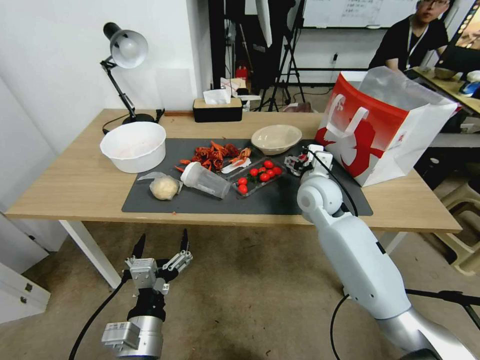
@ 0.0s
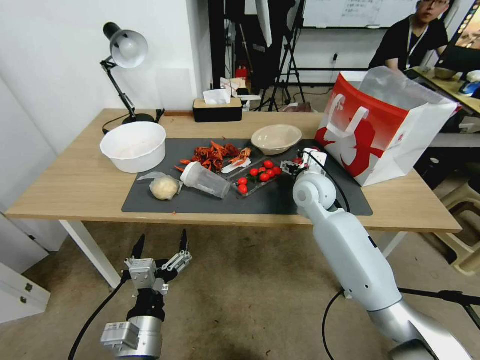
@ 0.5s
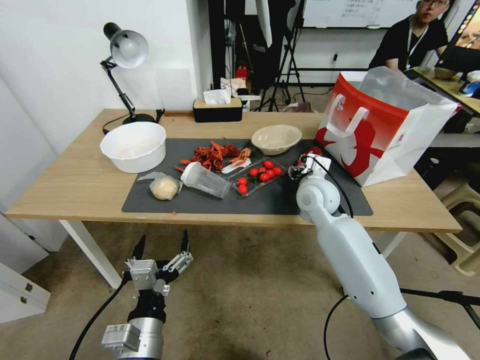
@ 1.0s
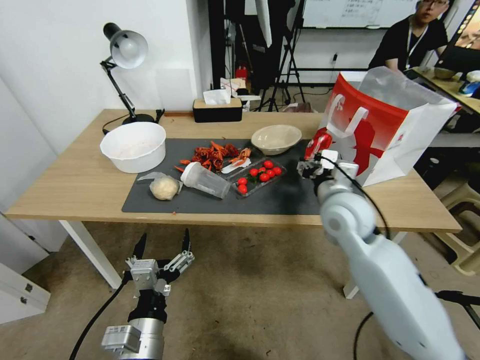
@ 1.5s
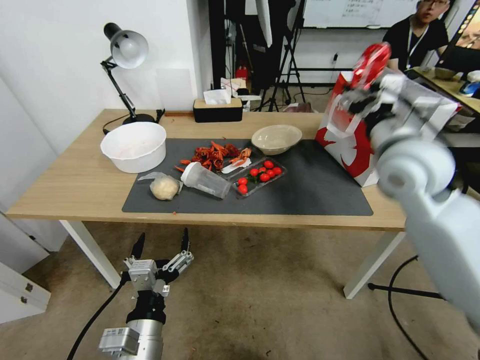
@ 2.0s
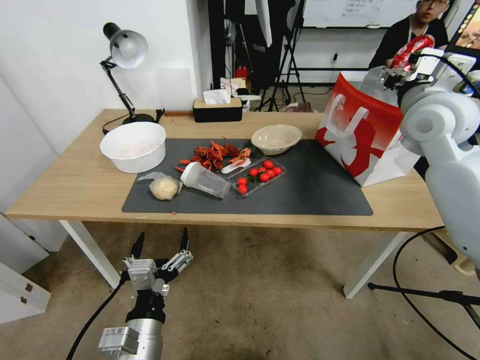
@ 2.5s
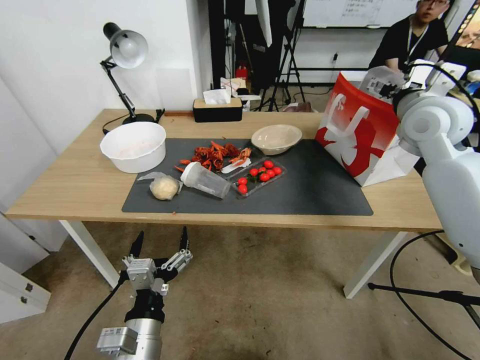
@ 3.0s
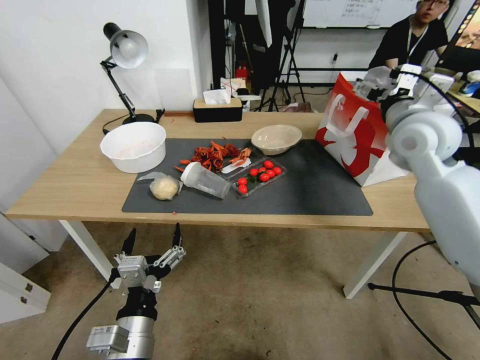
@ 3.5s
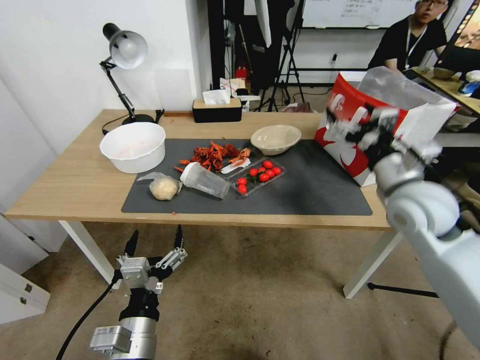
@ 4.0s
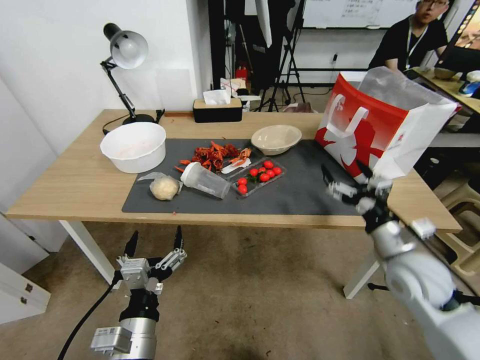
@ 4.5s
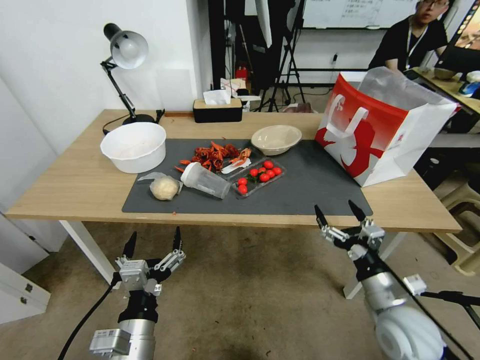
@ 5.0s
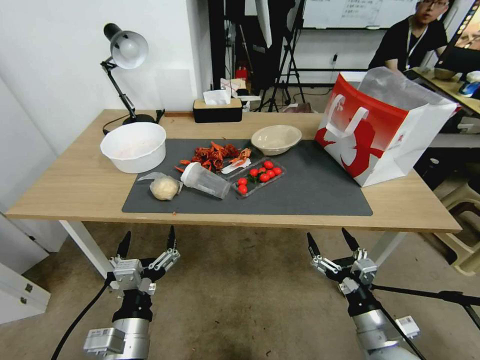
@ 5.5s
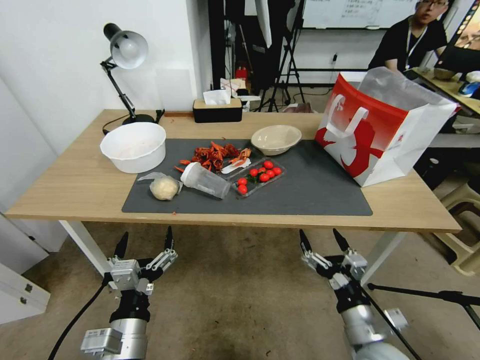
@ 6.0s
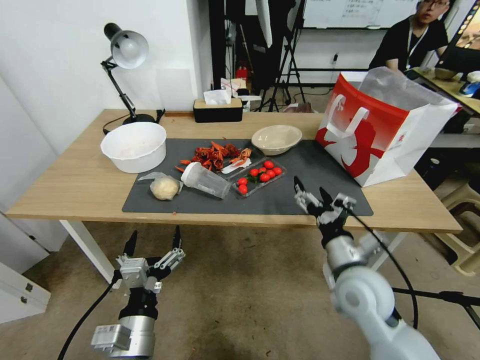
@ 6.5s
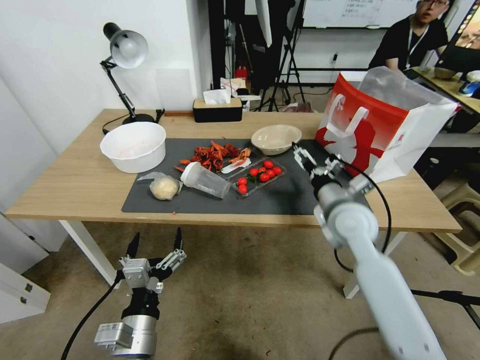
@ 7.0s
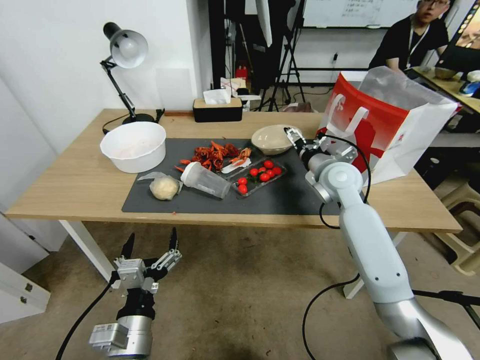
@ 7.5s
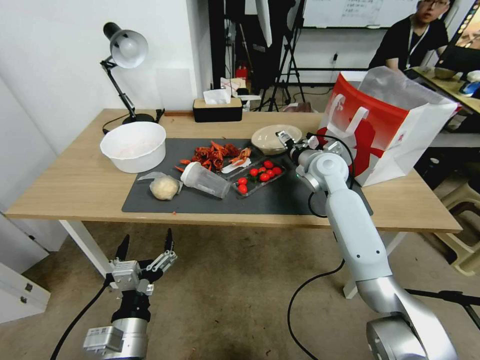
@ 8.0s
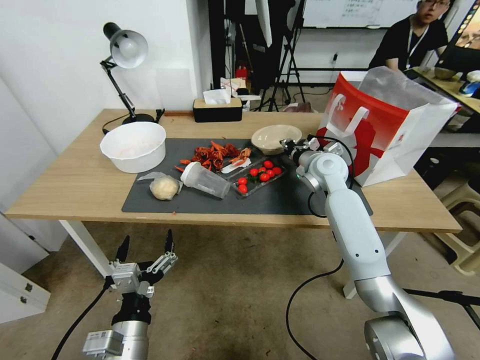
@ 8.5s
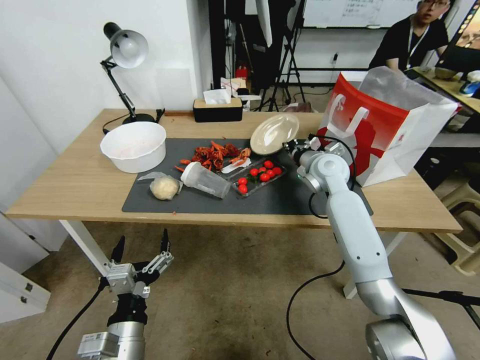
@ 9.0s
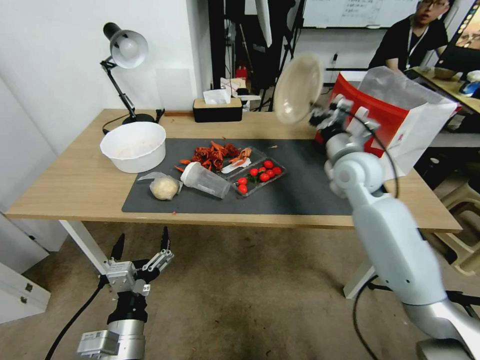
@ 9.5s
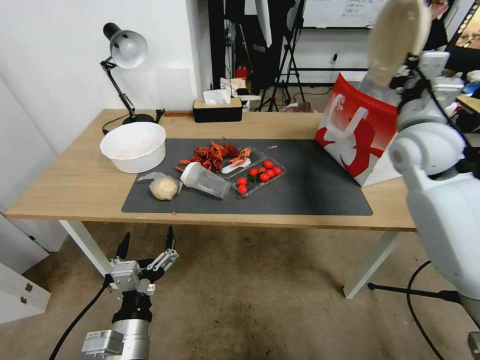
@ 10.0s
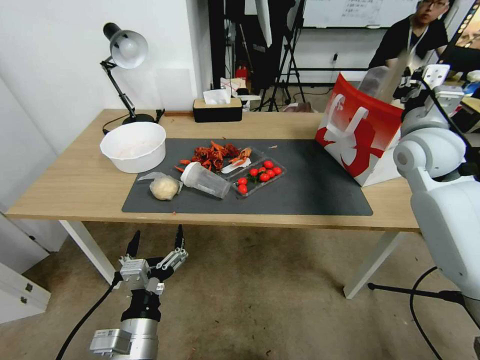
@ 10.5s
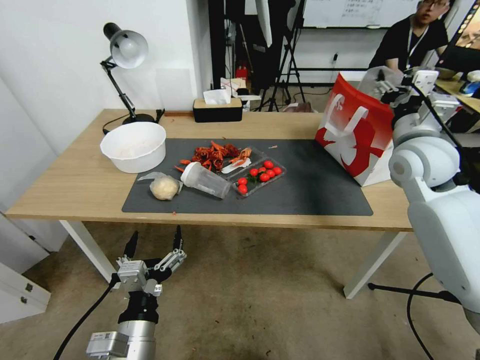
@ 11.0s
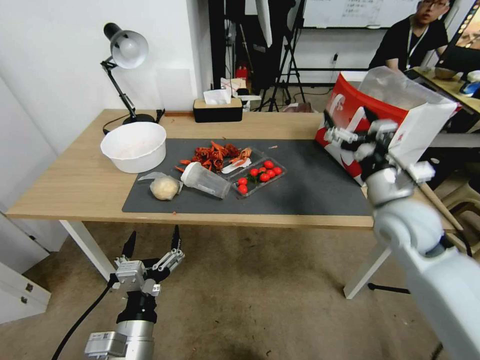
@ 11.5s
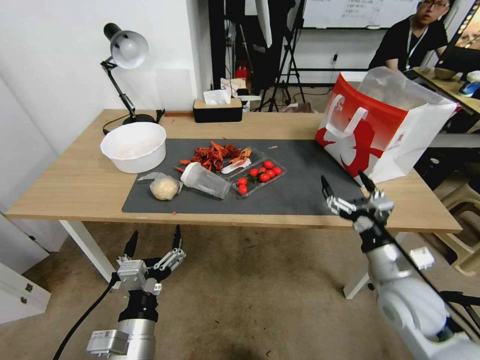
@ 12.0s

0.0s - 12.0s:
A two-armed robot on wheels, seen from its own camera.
0.0s - 2.0s: The right gripper heads backward, upward and to the right, covering about 15 cm, and closes.
2.0s - 4.0s: The right gripper shifts about 5 cm to the right, goes forward and returns, about 10 cm each way, and opens.
4.0s - 6.0s: The right gripper moves downward and backward, approximately 35 cm.
6.0s - 8.0s: The right gripper heads forward, covering some 40 cm.
8.0s - 10.0s: The right gripper goes roughly 15 cm upward, backward and to the right, and closes its fingers.
10.0s - 12.0s: The right gripper goes approximately 20 cm backward and downward, and opens.

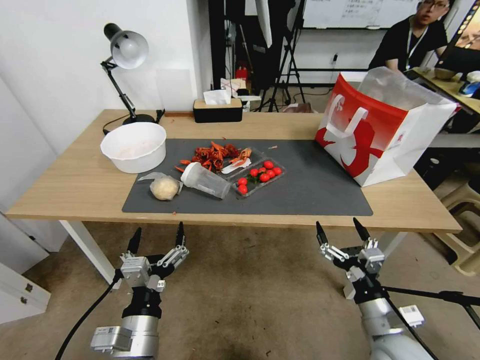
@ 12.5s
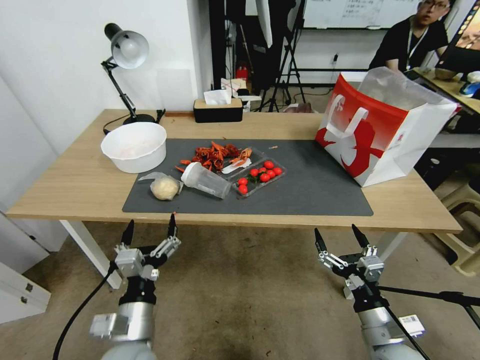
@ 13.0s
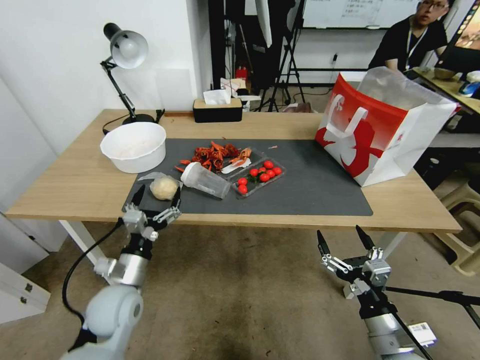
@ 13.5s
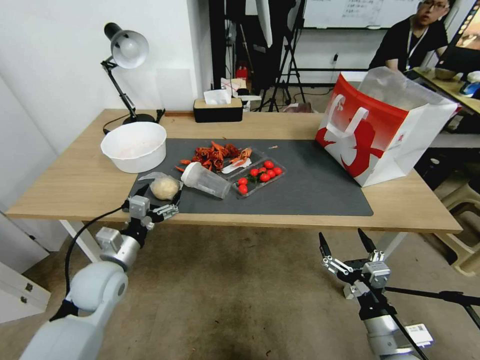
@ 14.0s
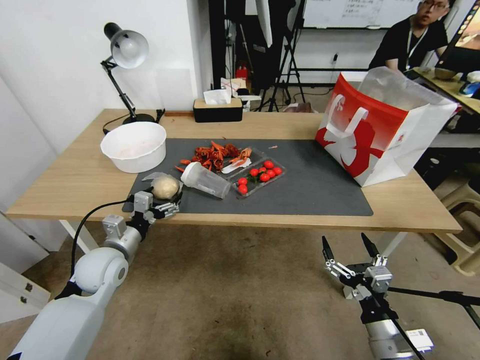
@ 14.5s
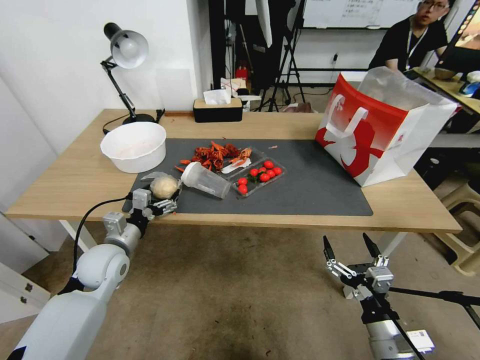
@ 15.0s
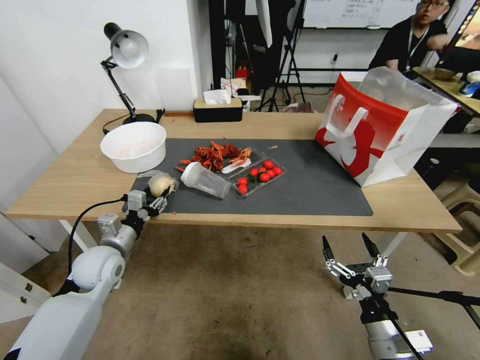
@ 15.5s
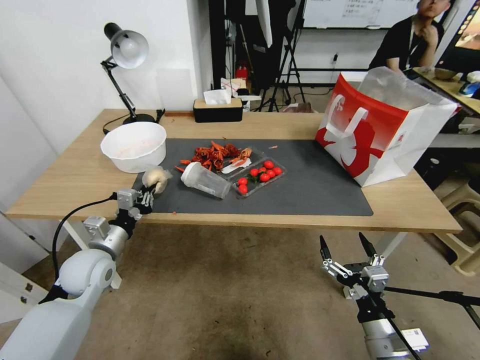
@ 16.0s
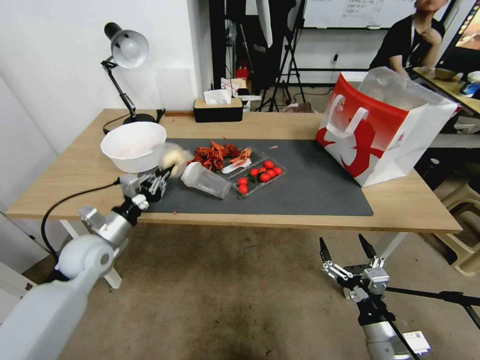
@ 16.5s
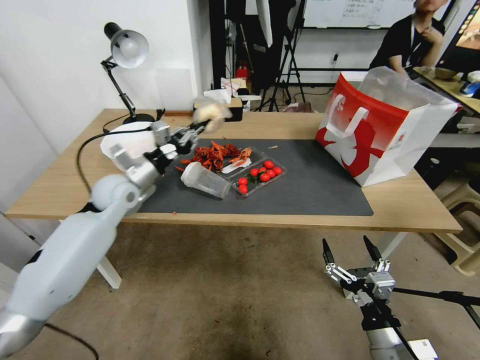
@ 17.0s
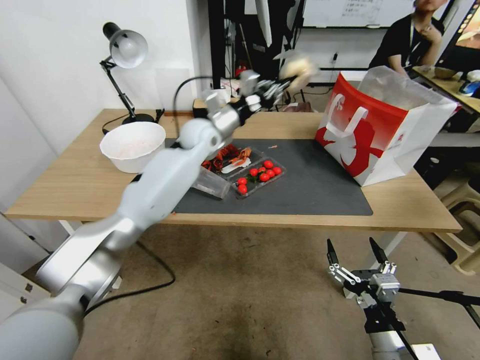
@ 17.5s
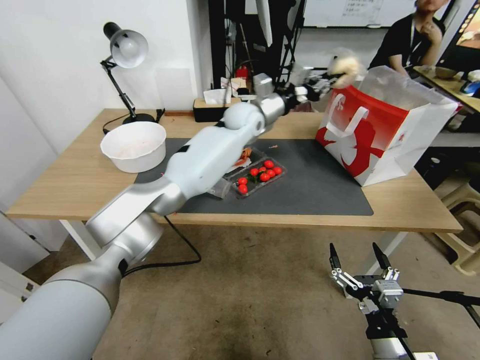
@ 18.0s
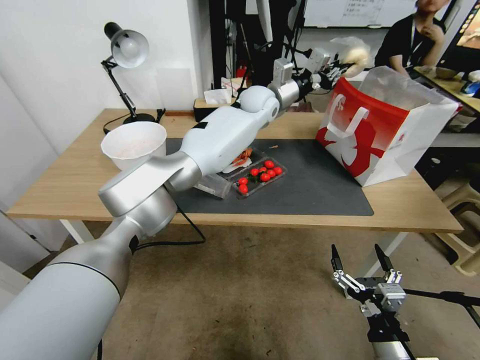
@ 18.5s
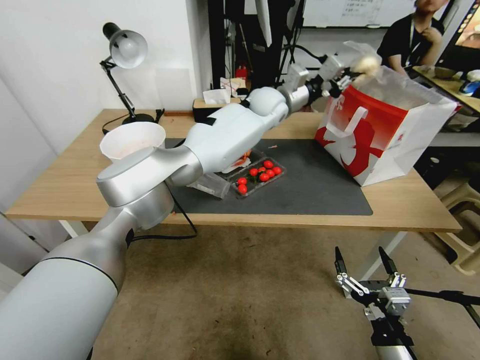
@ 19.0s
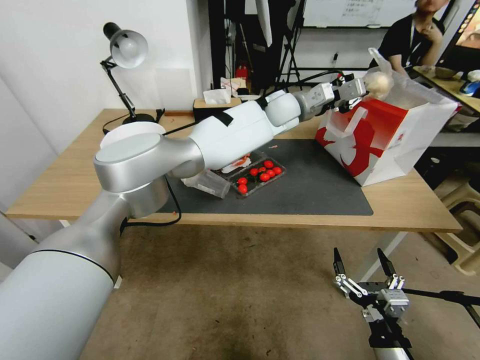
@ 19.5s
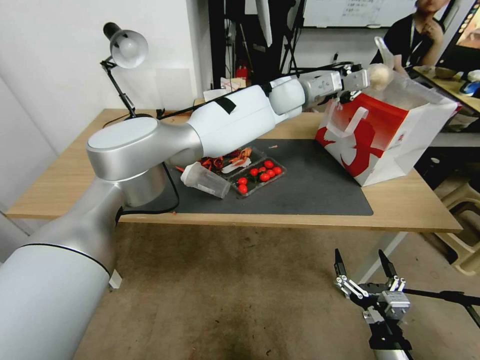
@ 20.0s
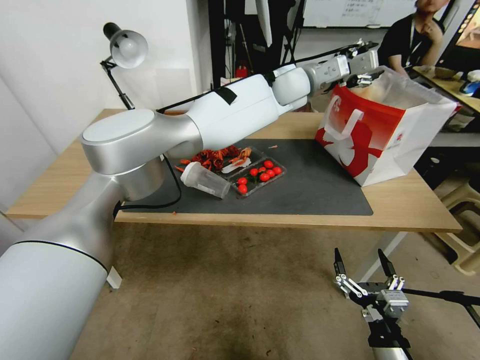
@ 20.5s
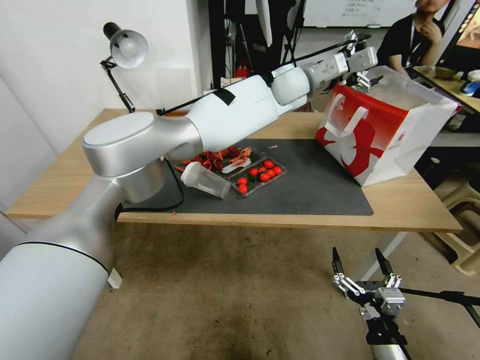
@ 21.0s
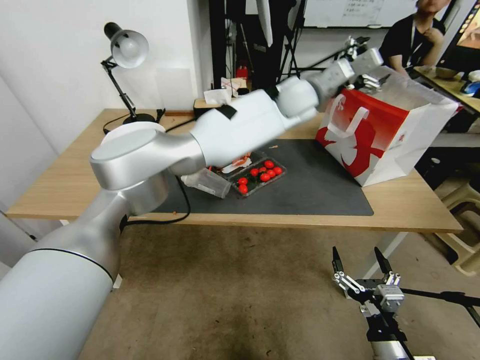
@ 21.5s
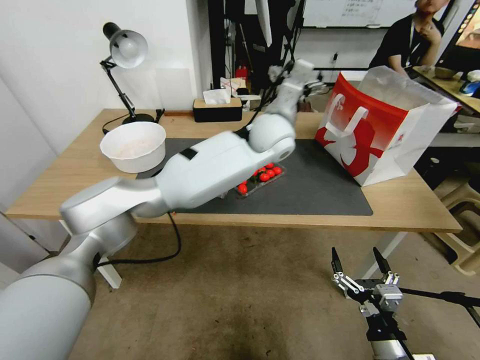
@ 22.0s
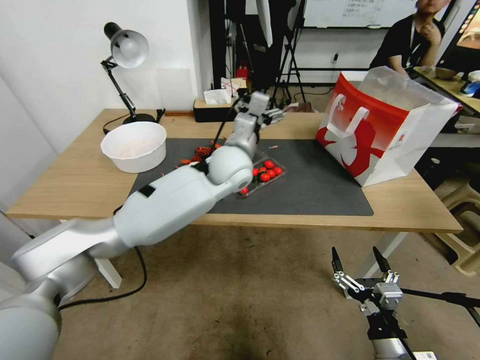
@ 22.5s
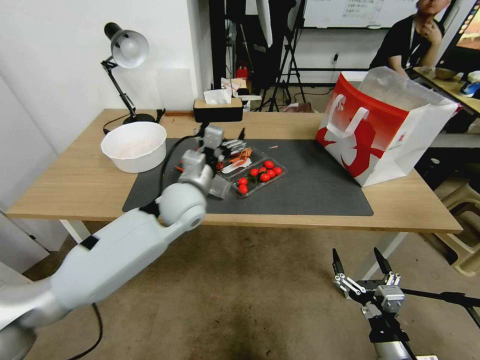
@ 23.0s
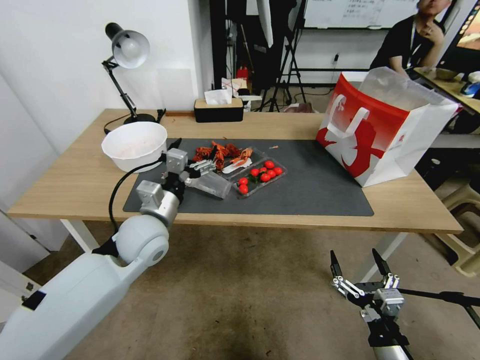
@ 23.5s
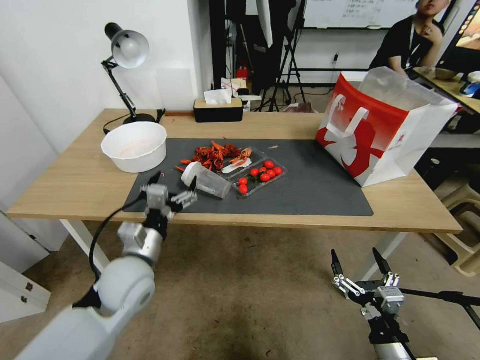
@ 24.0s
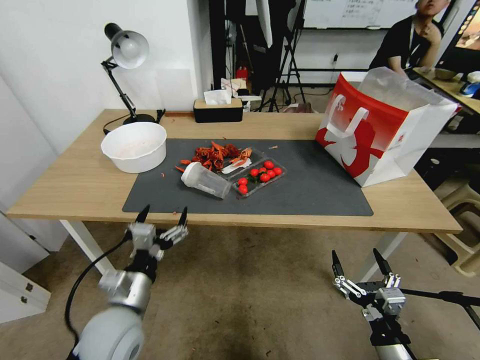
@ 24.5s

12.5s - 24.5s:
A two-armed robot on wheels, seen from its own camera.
12.5s - 14.5s: The right gripper is displaced backward by approximately 5 cm. Meanwhile the left gripper moves forward and to the left, some 25 cm.
14.5s - 16.5s: The left gripper closes its fingers.
16.5s - 18.5s: The left gripper moves to the right, forward and upward, approximately 50 cm.
18.5s - 20.5s: The left gripper heads upward and to the right, covering roughly 10 cm, and opens its fingers.
20.5s - 22.5s: The left gripper travels downward, backward and to the left by about 20 cm, and opens its fingers.
22.5s - 24.5s: The left gripper goes some 40 cm backward, to the left and downward.

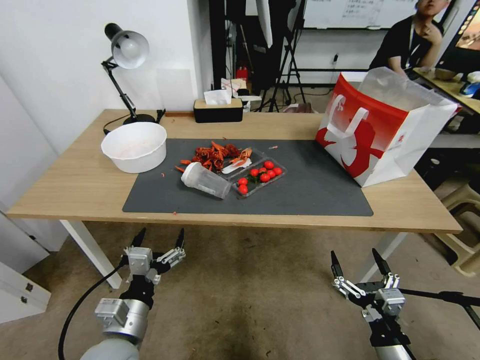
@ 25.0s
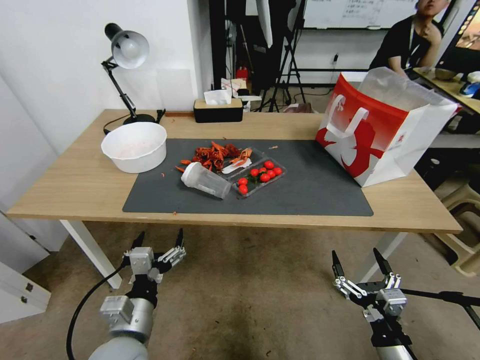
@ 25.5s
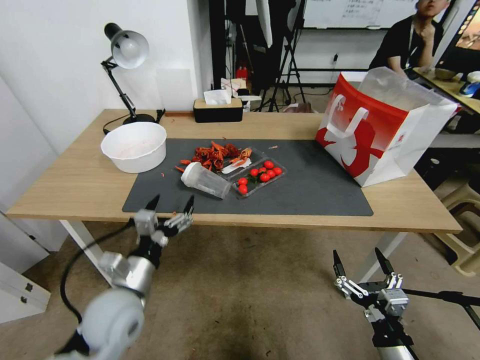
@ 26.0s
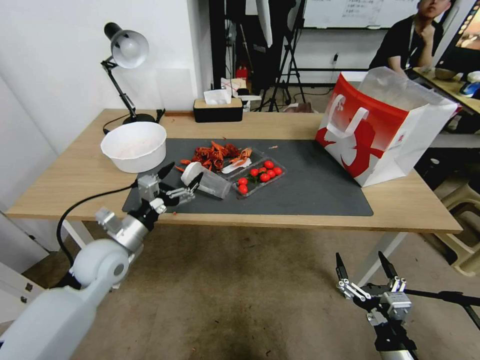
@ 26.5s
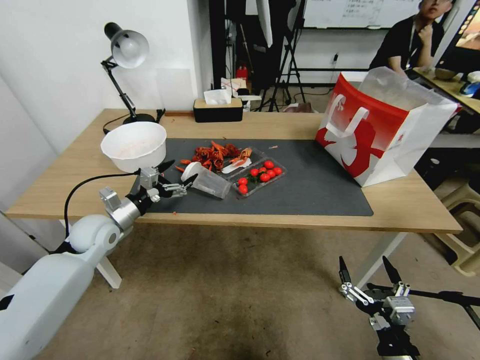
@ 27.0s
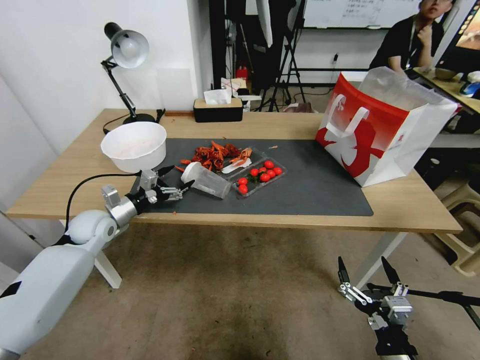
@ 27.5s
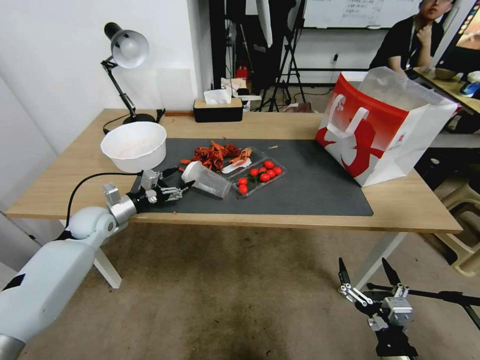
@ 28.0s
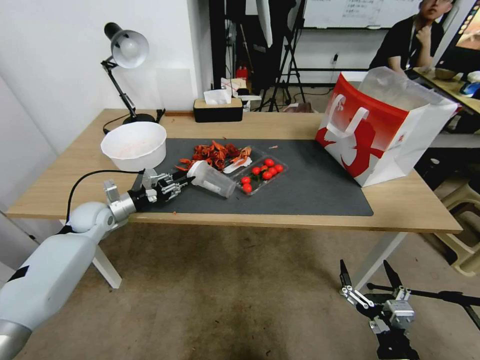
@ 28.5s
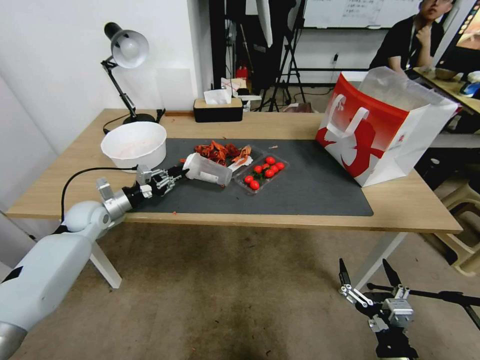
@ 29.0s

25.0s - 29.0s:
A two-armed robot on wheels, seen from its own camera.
25.0s - 27.0s: The left gripper heads forward and to the left, covering roughly 25 cm.
27.0s - 29.0s: The left gripper is displaced forward by some 5 cm, and closes up.
